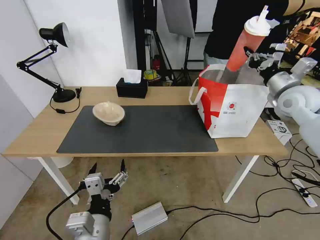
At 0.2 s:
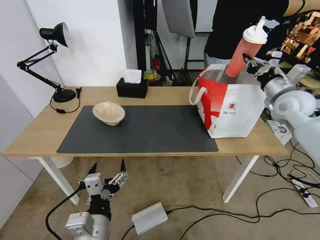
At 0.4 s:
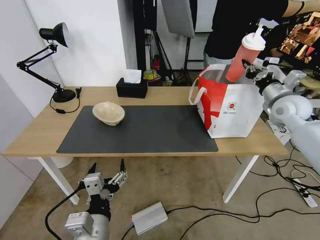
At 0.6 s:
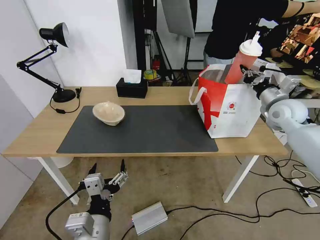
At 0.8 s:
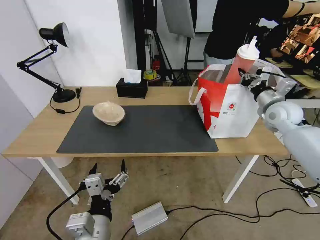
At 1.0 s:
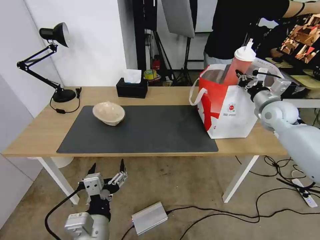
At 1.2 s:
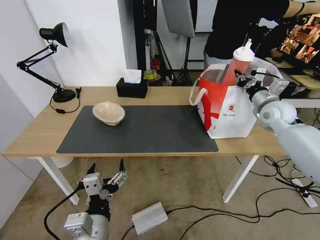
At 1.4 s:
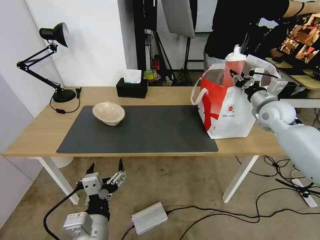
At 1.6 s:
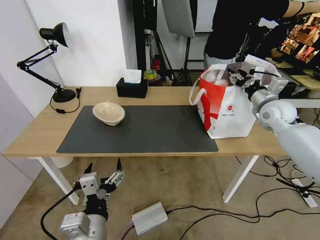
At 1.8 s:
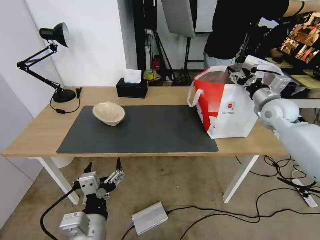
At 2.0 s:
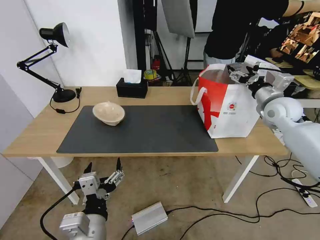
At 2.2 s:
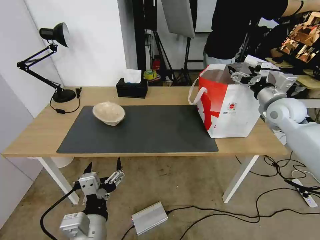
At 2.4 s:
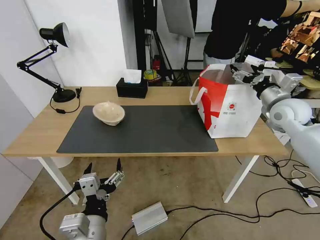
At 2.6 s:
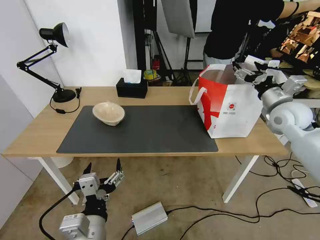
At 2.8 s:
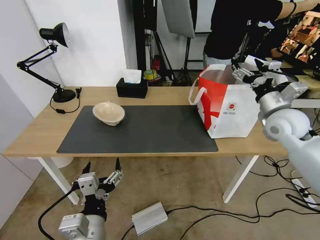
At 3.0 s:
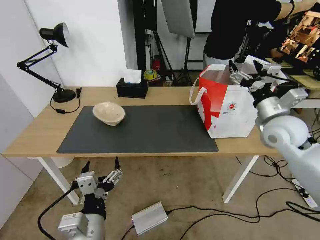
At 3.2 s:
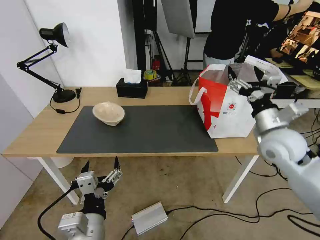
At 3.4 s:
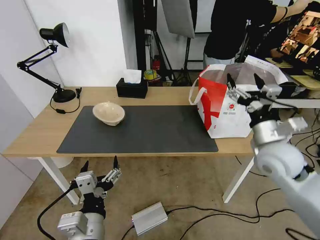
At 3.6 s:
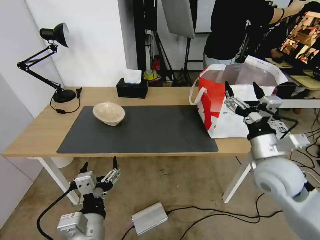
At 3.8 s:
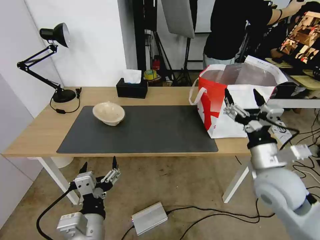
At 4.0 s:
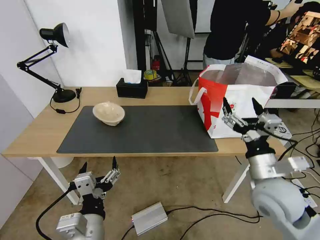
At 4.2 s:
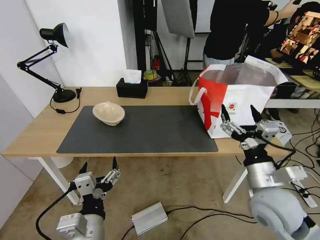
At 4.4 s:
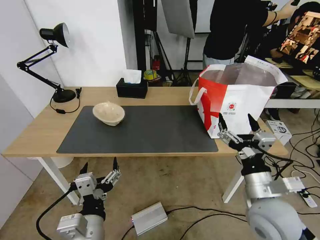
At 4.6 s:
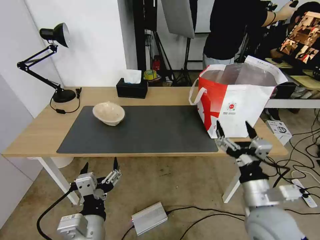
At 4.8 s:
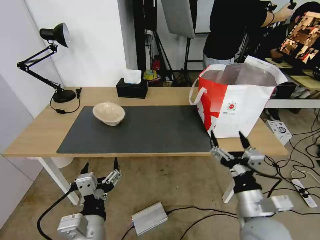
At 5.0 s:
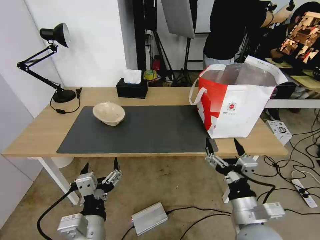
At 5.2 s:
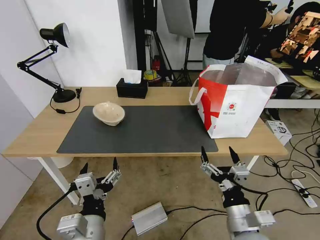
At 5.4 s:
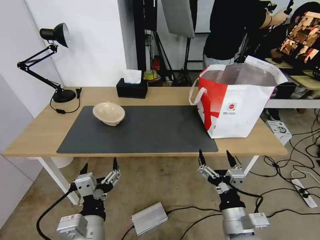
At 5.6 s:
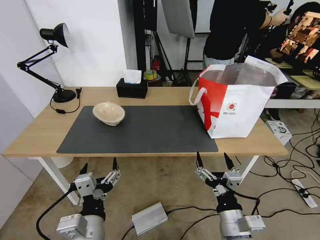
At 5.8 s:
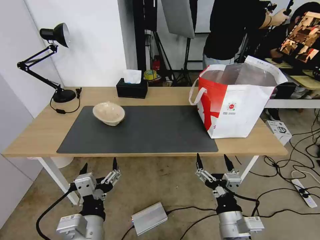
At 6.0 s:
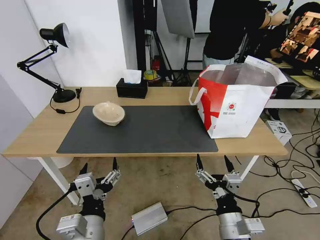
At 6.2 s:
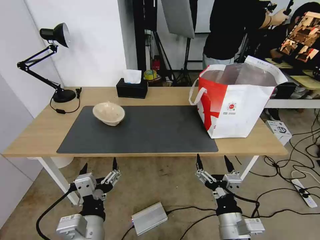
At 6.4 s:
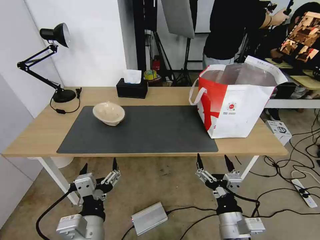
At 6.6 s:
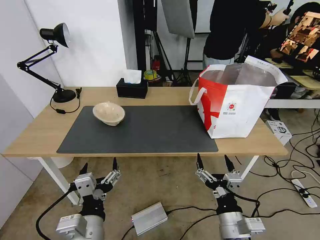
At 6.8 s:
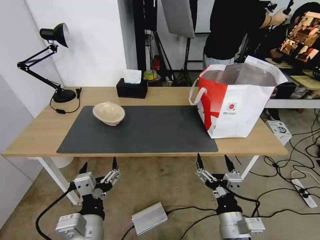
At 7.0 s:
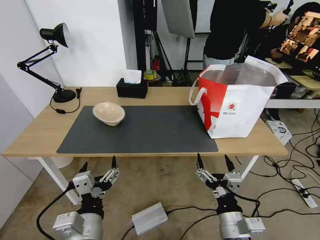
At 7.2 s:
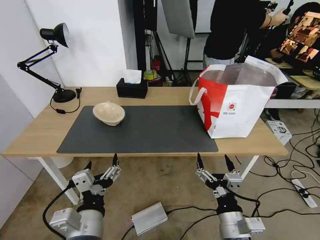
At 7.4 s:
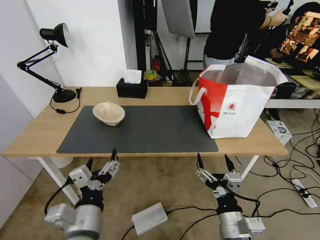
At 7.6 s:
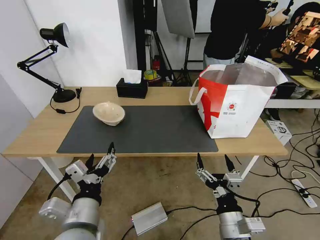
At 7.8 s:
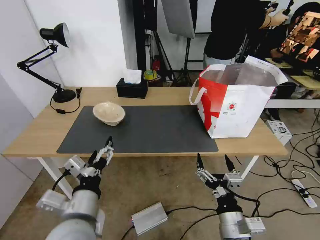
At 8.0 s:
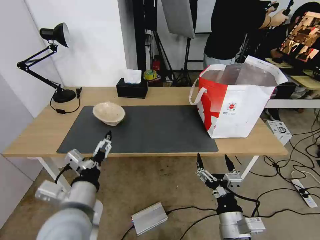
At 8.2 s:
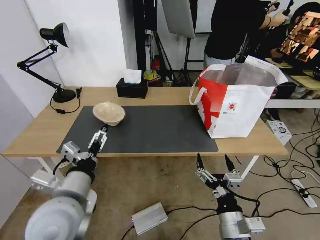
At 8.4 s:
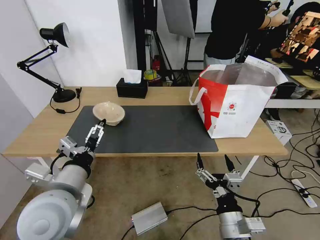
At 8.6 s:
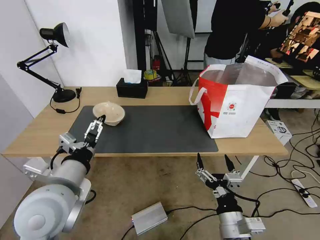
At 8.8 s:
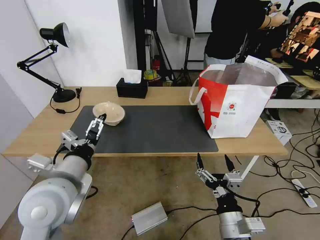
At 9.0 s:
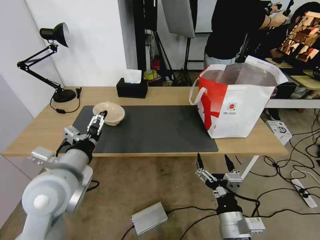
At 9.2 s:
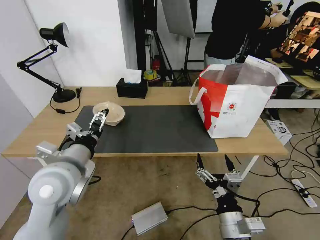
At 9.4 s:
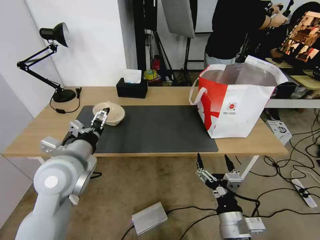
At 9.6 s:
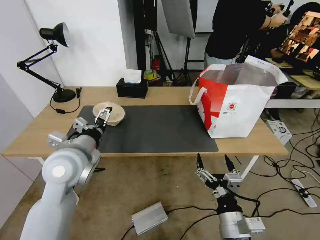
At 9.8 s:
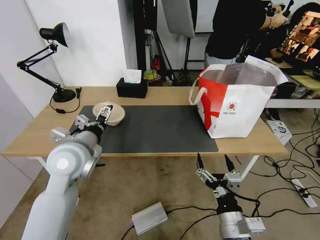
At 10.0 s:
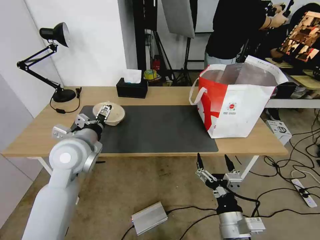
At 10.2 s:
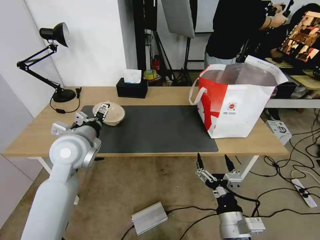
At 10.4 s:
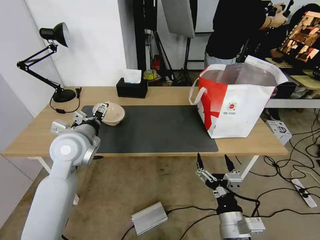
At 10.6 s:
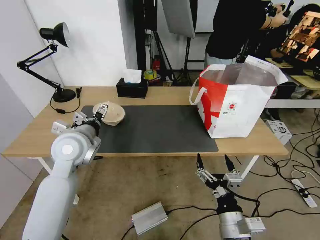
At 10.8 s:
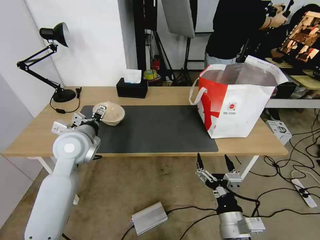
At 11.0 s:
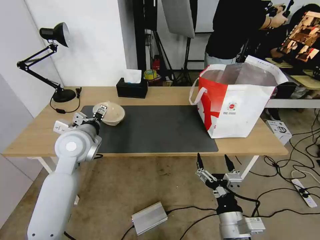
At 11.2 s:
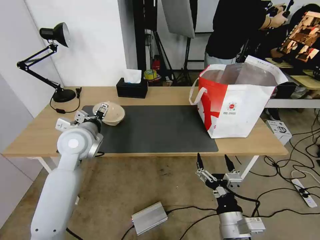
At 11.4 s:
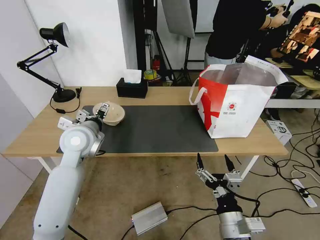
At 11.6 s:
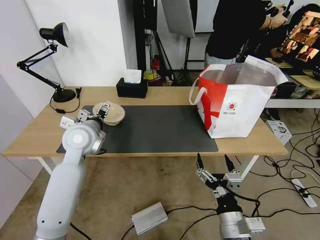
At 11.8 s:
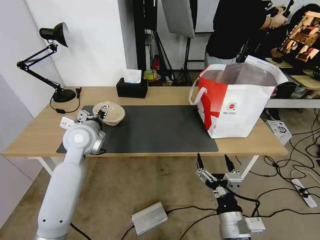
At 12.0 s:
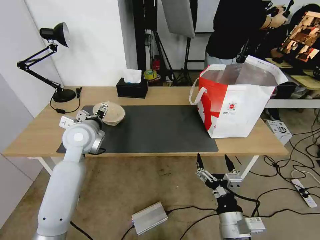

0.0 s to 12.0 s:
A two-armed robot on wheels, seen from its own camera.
Task of the whole recording: Pick up the trash from the table and place it into the takeout bag.
0.0 to 1.6 s: The right gripper moves downward, some 5 cm, and opens.
1.6 to 3.0 s: The right gripper goes about 10 cm backward, and opens.
3.0 to 4.4 s: The right gripper goes approximately 25 cm backward, downward and to the left.
4.4 to 6.0 s: The right gripper shifts some 15 cm downward, backward and to the left.
7.6 to 9.0 s: The left gripper goes about 15 cm forward and upward.
9.0 to 10.4 s: The left gripper is displaced forward by some 10 cm.
10.4 to 12.0 s: The left gripper changes place by approximately 5 cm.

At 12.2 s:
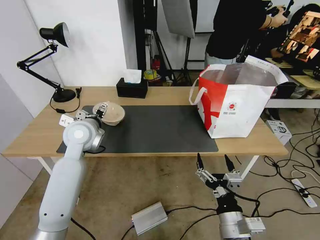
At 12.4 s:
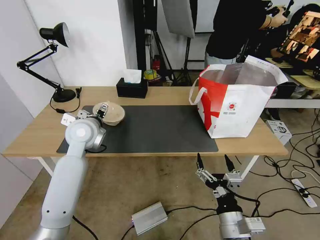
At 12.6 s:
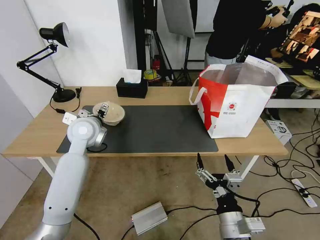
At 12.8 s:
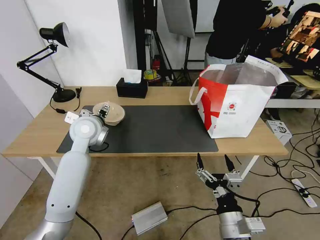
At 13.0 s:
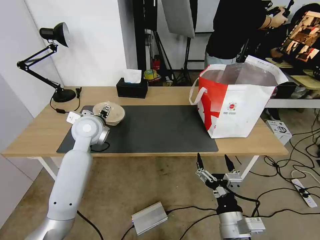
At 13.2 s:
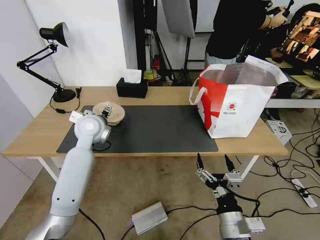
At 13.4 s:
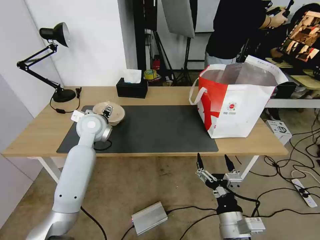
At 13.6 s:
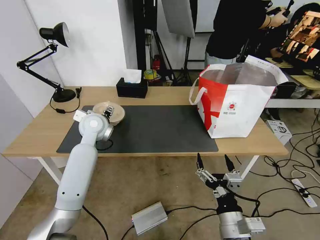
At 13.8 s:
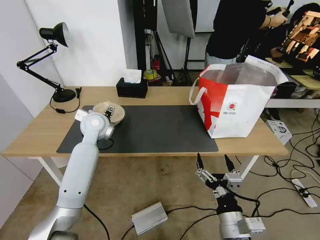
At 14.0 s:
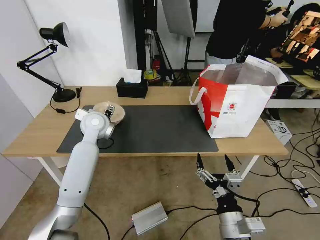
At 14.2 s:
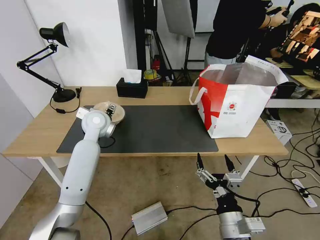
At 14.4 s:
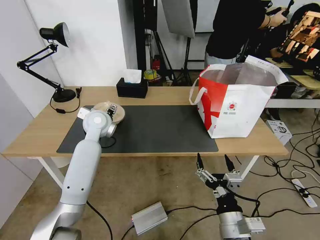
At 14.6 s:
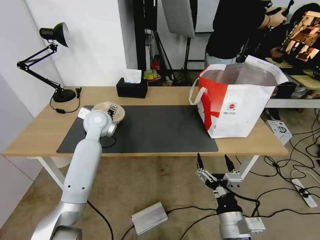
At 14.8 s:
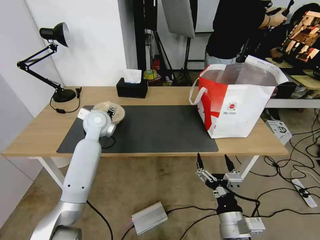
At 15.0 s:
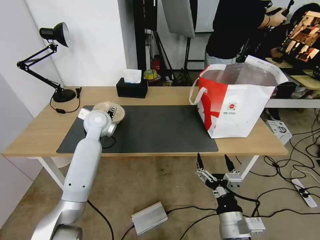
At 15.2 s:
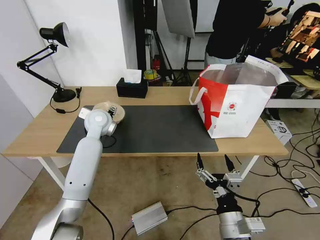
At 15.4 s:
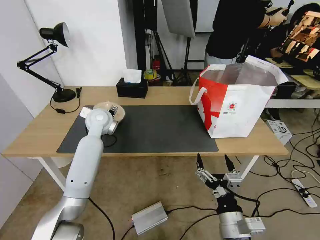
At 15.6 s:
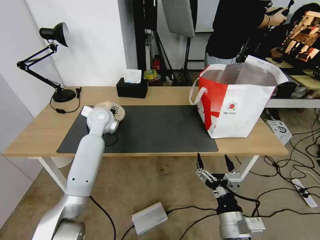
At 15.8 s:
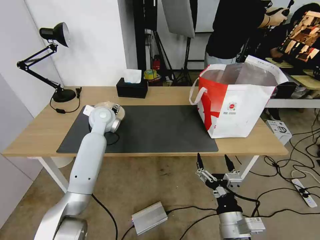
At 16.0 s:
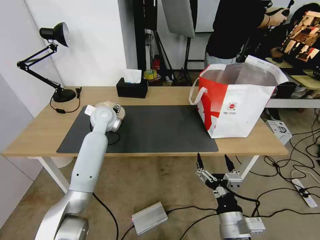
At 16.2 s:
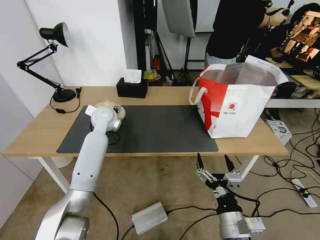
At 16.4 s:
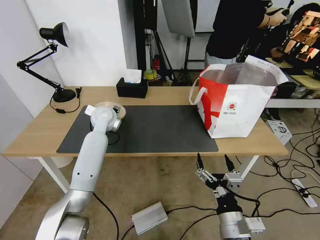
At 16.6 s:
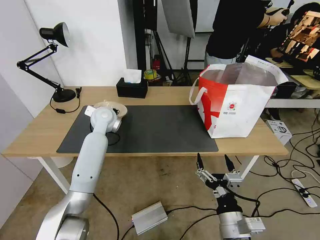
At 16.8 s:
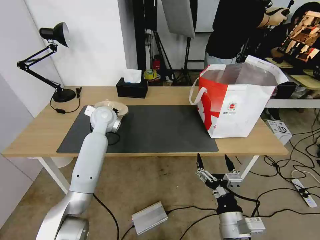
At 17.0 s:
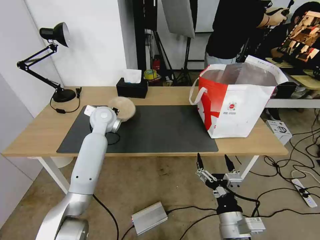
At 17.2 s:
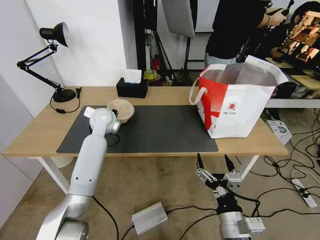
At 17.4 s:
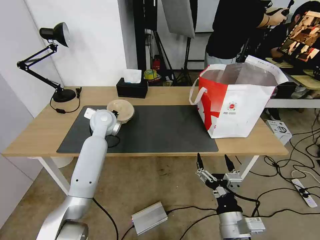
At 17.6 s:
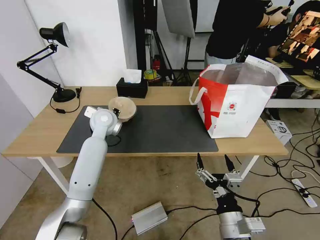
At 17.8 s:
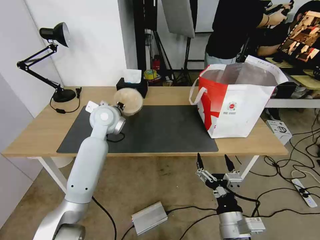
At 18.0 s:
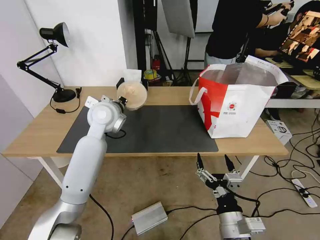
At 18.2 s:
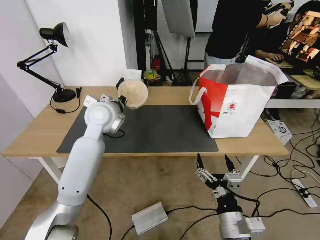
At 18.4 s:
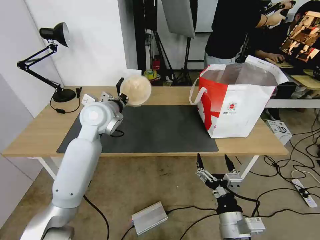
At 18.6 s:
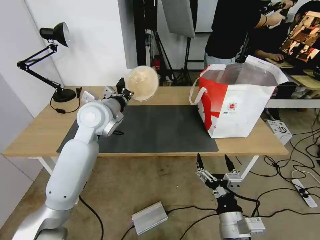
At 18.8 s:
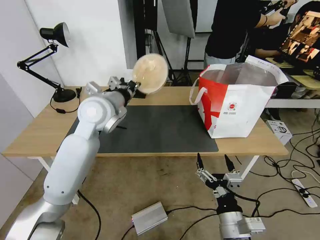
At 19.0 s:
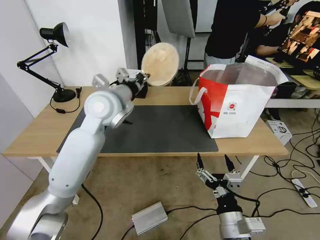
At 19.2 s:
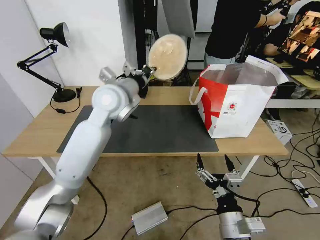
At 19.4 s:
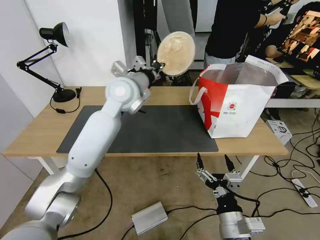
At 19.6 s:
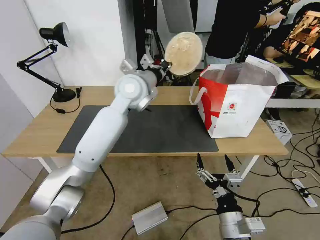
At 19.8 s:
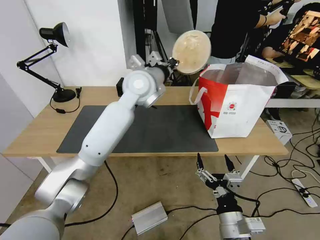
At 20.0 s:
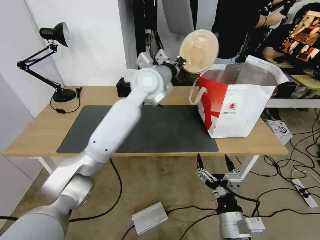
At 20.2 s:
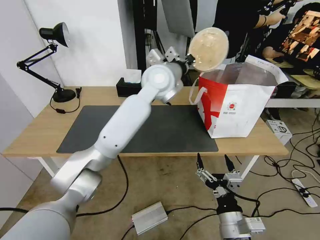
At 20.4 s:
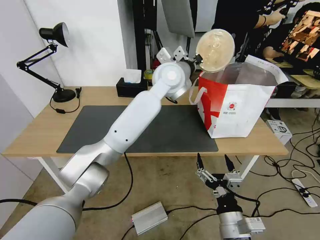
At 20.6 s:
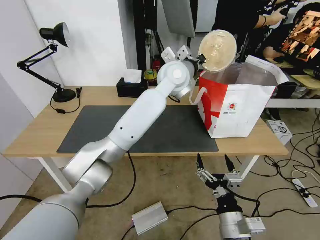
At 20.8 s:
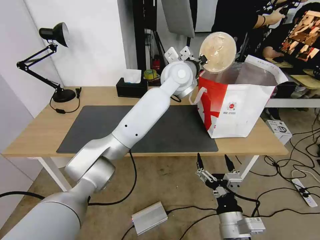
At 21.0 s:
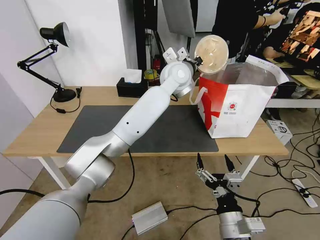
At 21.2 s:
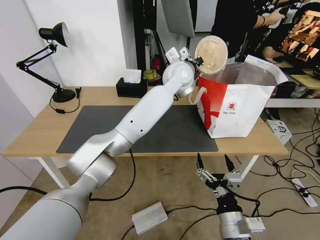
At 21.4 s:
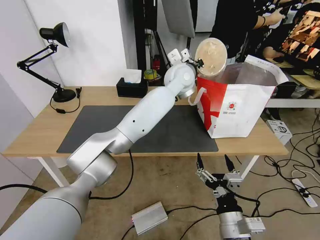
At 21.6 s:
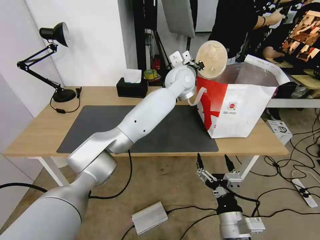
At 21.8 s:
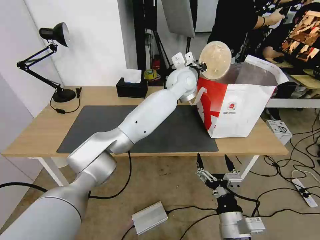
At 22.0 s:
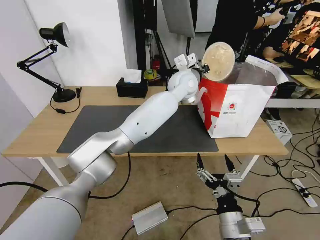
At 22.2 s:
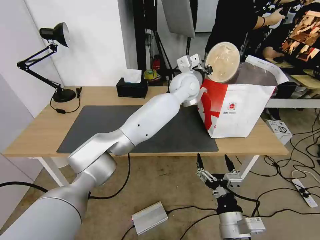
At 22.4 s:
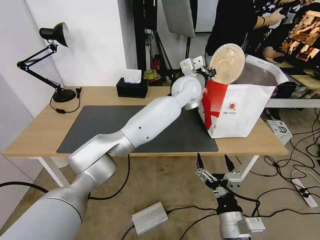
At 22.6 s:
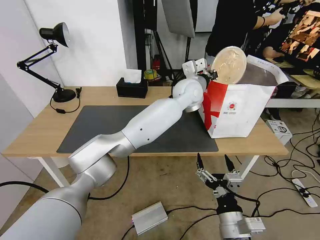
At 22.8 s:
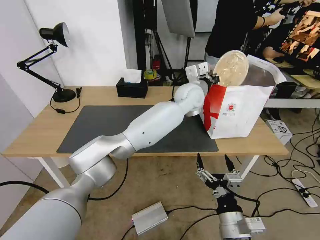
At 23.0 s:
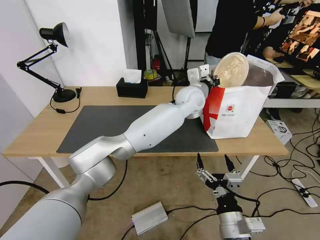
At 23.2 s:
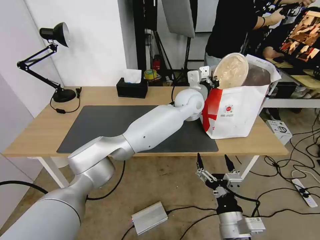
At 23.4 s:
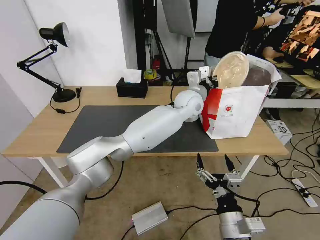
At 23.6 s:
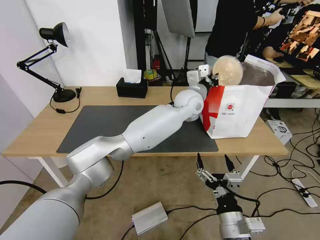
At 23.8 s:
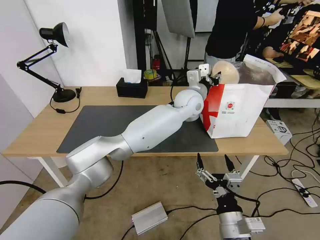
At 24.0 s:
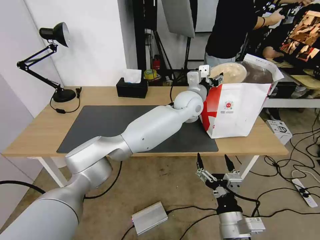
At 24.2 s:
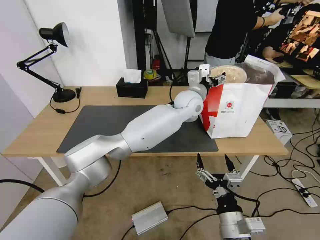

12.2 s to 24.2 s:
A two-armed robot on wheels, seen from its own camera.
Task of the whole recording: Pick up the trash from the table and place it into the takeout bag.
12.2 to 13.8 s: The left gripper travels forward by about 5 cm.
13.8 to 15.2 s: The grippers make only small movements.
15.2 to 16.6 s: The left gripper closes.
16.6 to 18.2 s: The left gripper goes some 10 cm upward and backward, and closes.
18.2 to 19.8 s: The left gripper shifts approximately 15 cm to the right and upward.
19.8 to 21.2 s: The left gripper is displaced to the right and forward by roughly 15 cm.
21.2 to 22.6 s: The left gripper shifts by approximately 5 cm.
22.6 to 24.2 s: The left gripper opens.
